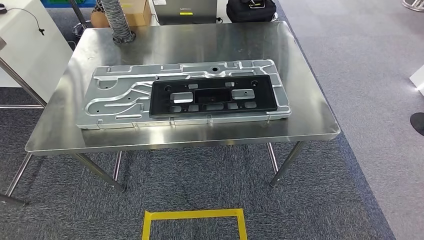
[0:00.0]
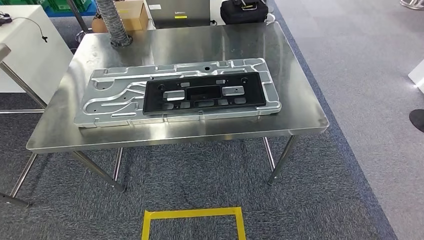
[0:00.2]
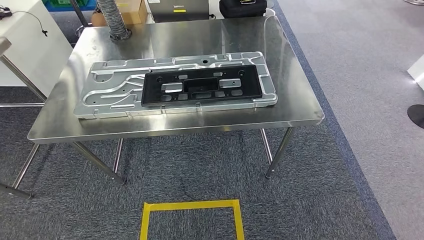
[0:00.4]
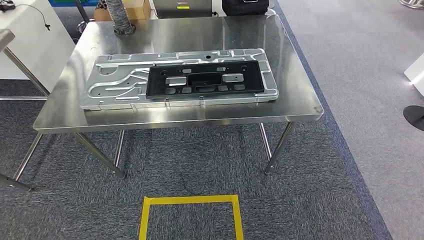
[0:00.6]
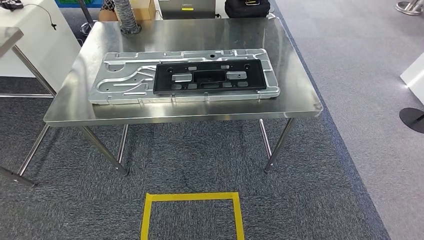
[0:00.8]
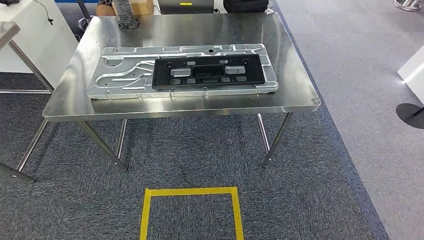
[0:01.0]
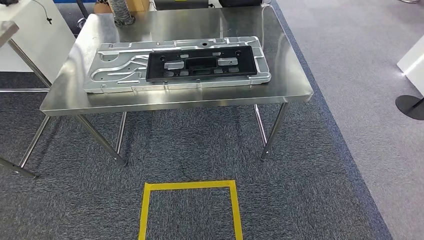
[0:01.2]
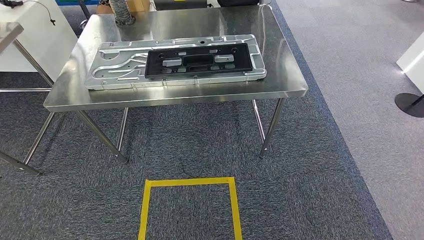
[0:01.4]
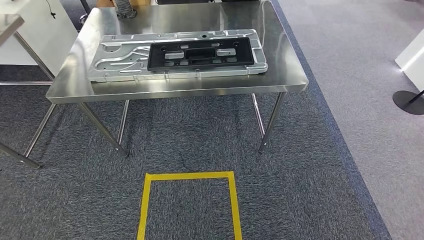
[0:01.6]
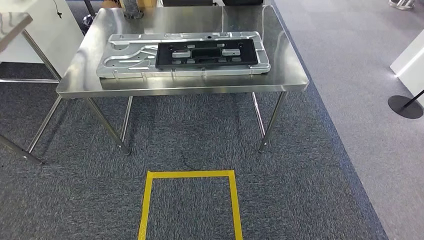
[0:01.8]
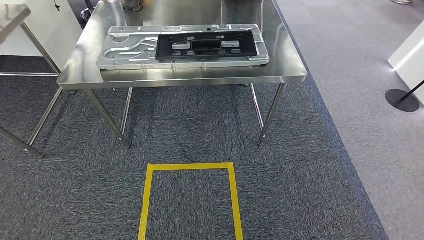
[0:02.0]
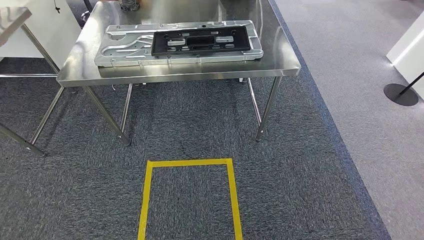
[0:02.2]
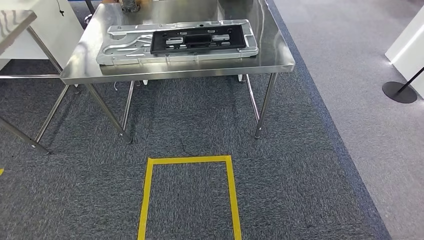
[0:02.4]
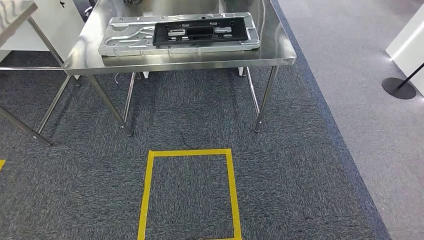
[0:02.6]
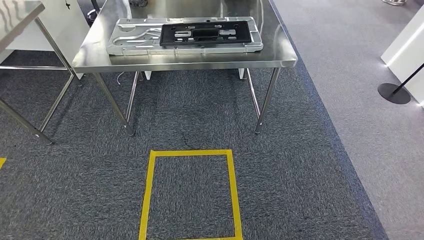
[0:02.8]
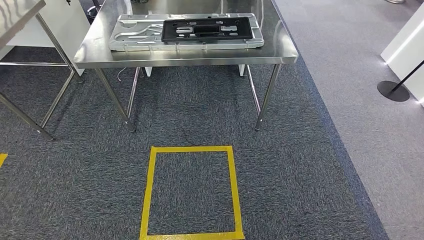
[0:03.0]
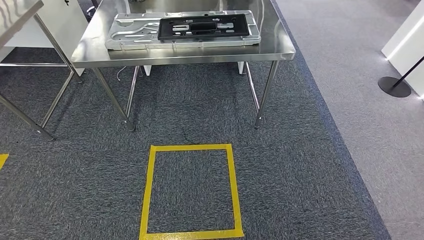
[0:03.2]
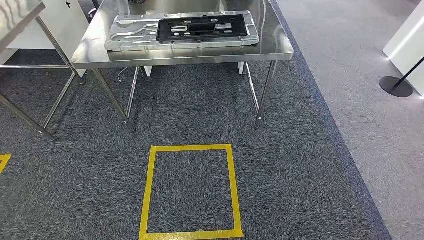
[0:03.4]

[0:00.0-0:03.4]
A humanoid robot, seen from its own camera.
Step, 0:00.0 to 0:03.2: Move to the initial position of the shelf.
